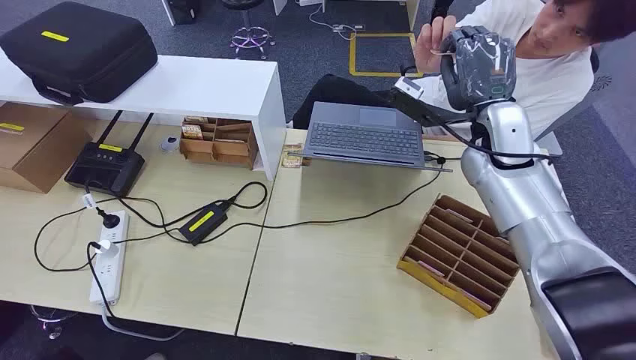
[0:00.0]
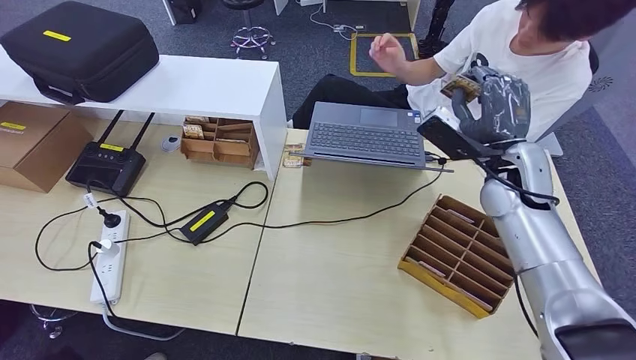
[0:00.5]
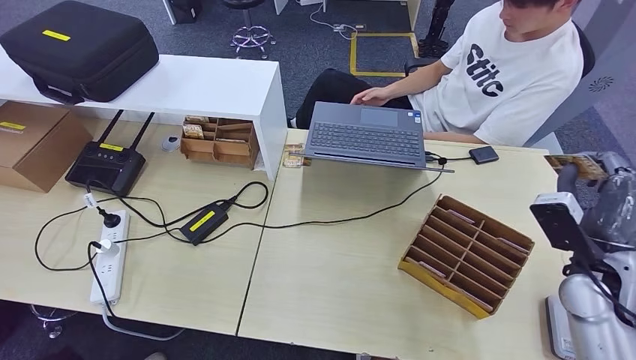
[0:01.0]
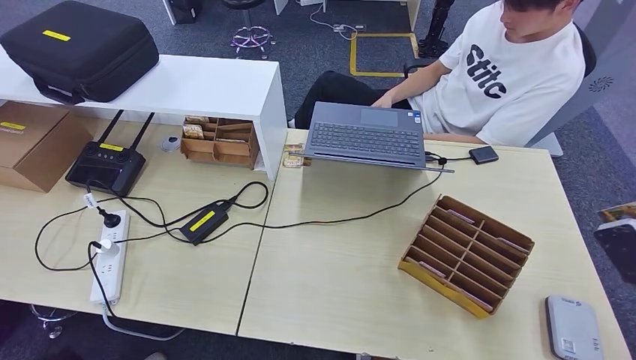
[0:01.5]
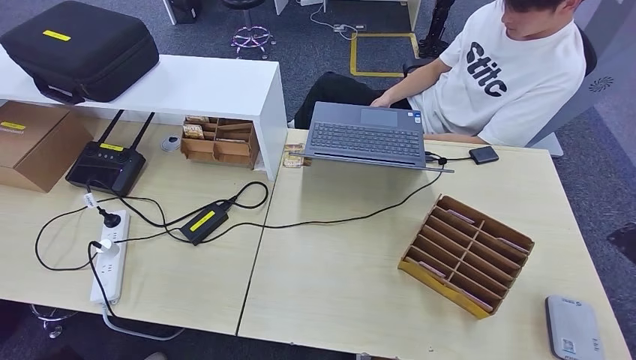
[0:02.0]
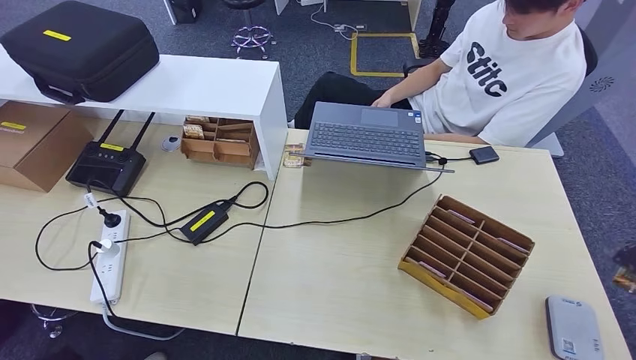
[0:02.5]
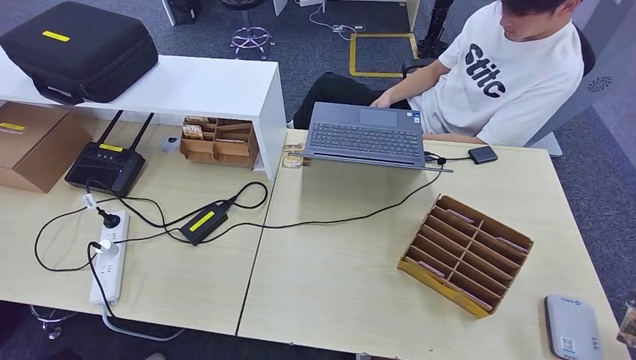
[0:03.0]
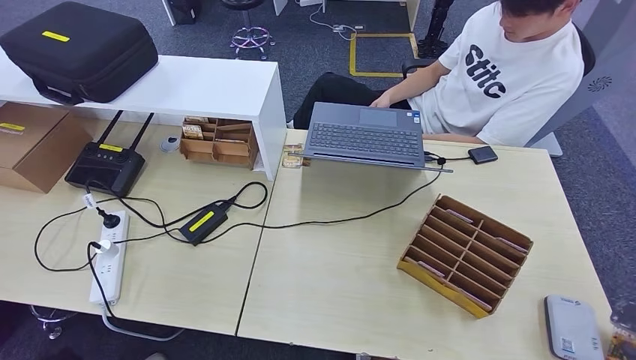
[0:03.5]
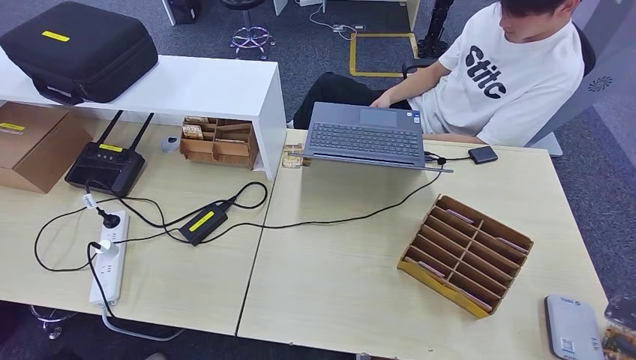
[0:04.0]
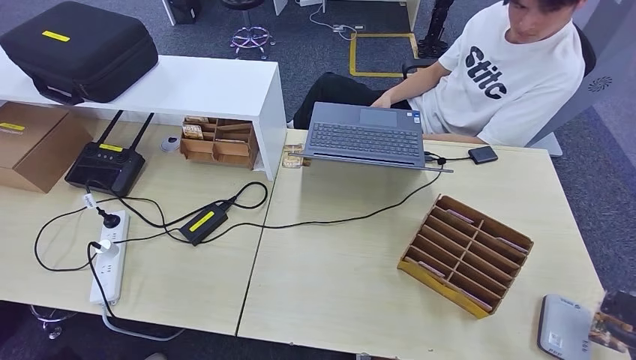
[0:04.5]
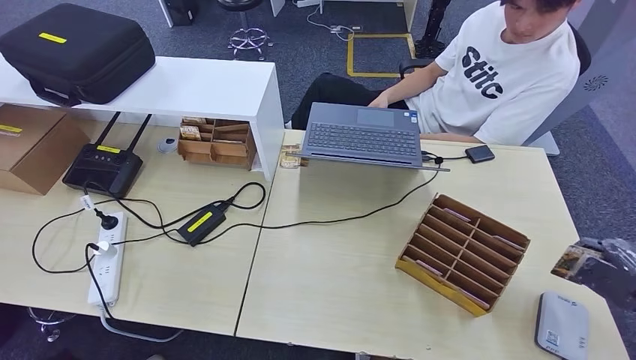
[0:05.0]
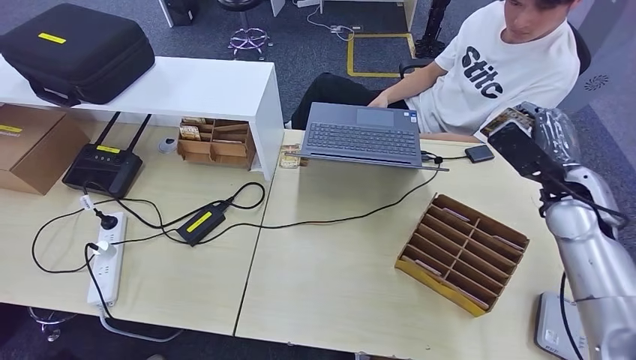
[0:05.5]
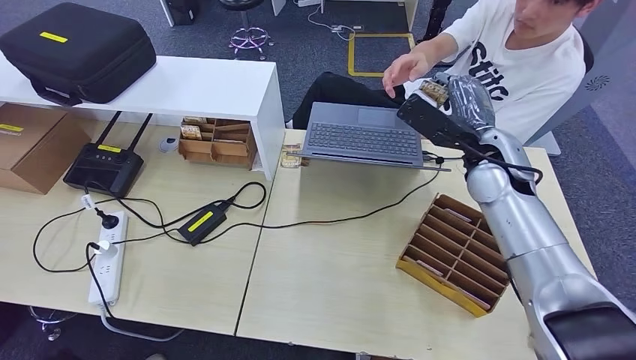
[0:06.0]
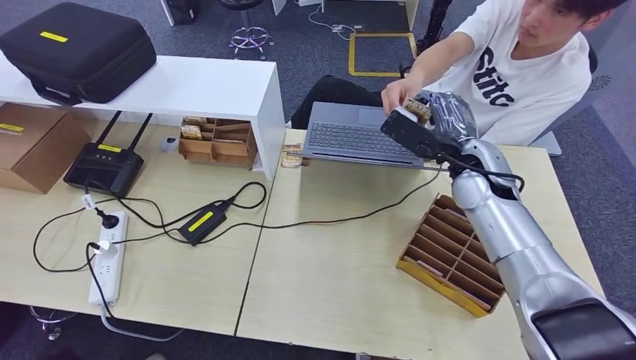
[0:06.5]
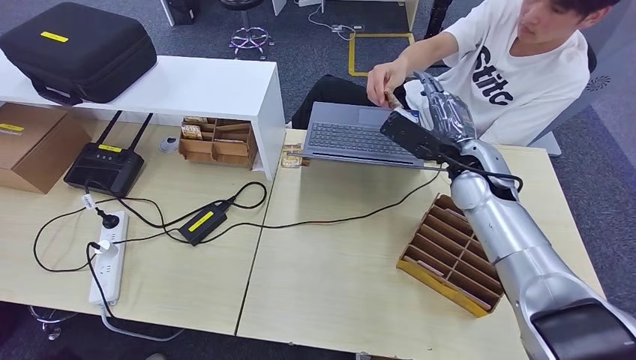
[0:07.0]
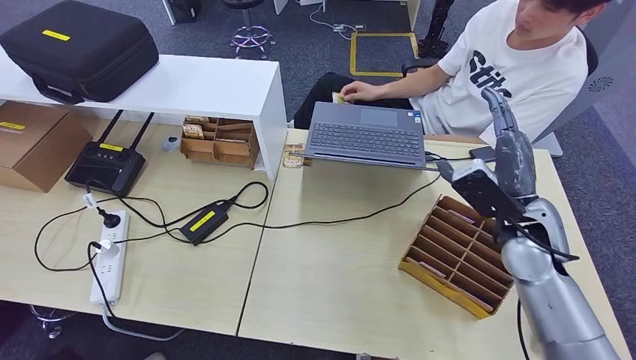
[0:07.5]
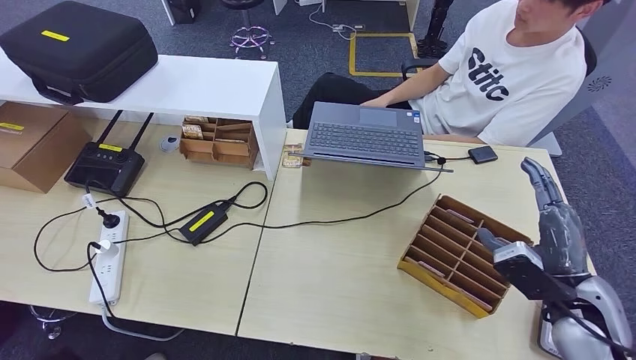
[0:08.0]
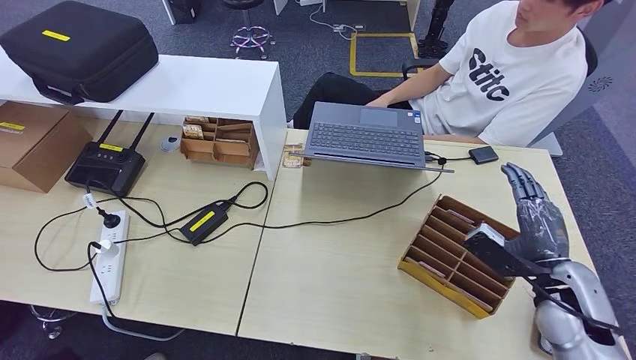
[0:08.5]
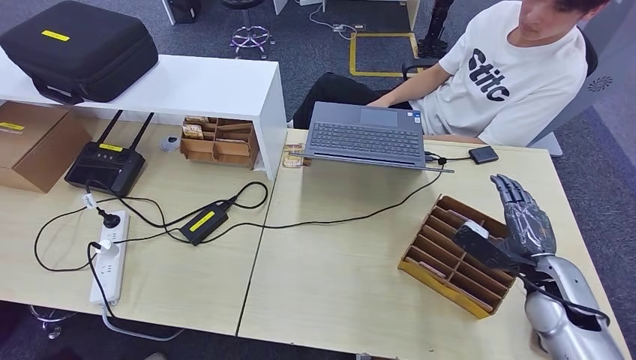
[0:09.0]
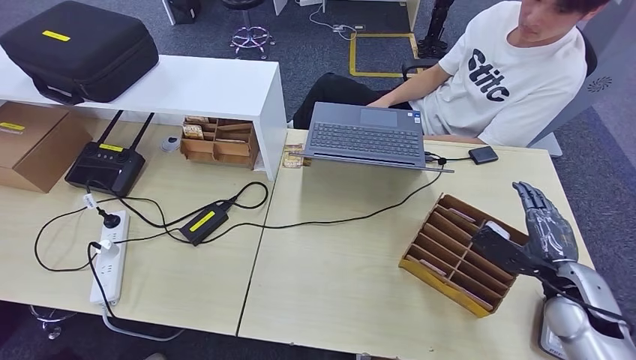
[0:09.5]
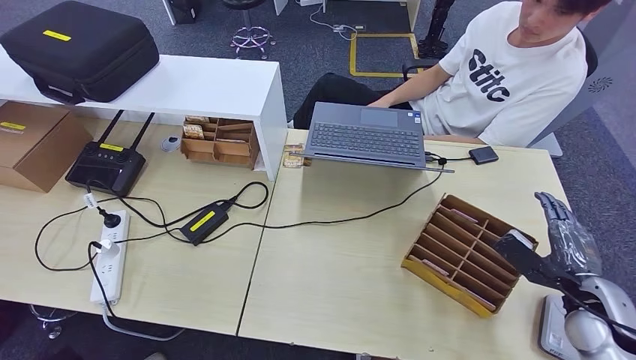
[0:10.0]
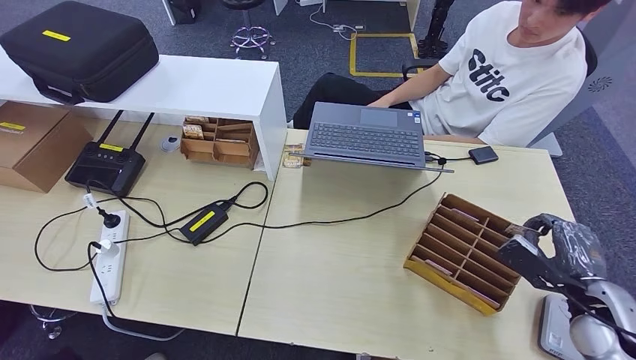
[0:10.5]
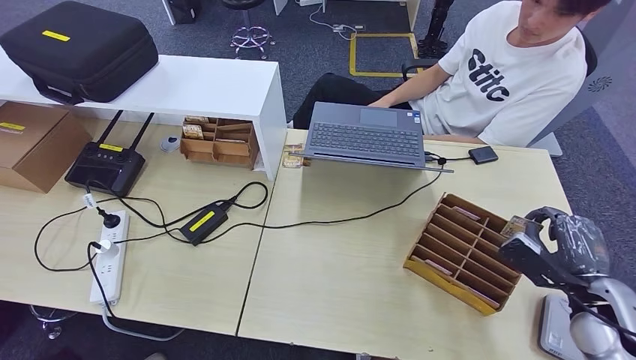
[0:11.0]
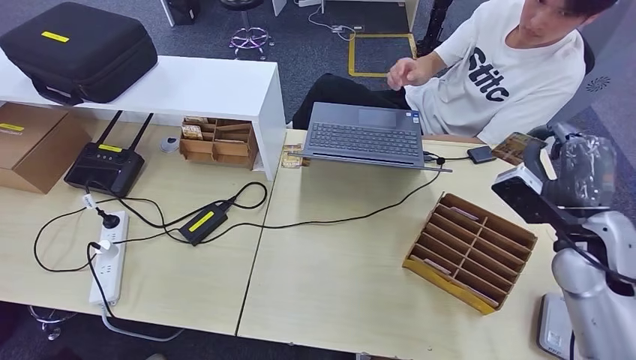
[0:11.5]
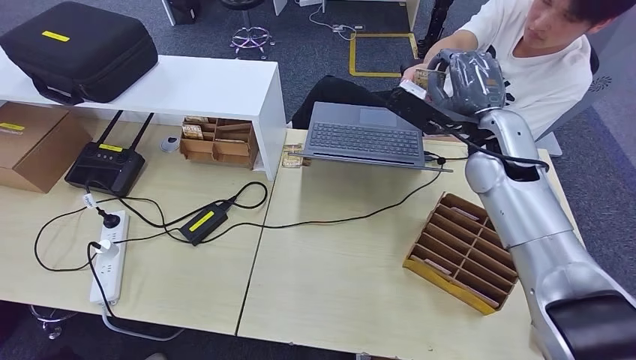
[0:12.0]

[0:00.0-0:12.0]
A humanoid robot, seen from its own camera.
Step, 0:00.0 to 0:01.5: Take the ID card from the person's hand.
Step, 0:02.0 to 0:05.5: Place the ID card on the card reader.
Step, 0:06.0 to 0:09.0: Hand the ID card to the person.
Step, 0:09.5 to 0:11.5: Pick up the room key from the key card box.
0:02.0 to 0:04.0: The right hand is displaced to the right and downward by about 10 cm.
0:04.0 to 0:06.0: The right hand shifts some 40 cm to the left and forward.
0:06.0 to 0:08.0: The right hand moves backward, to the right and downward, about 25 cm.
0:08.0 to 0:10.0: The right hand goes about 5 cm to the right.
0:10.0 to 0:12.0: The right hand shifts some 30 cm to the left, forward and upward.

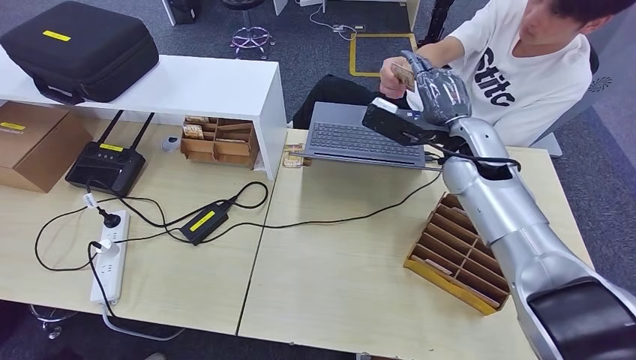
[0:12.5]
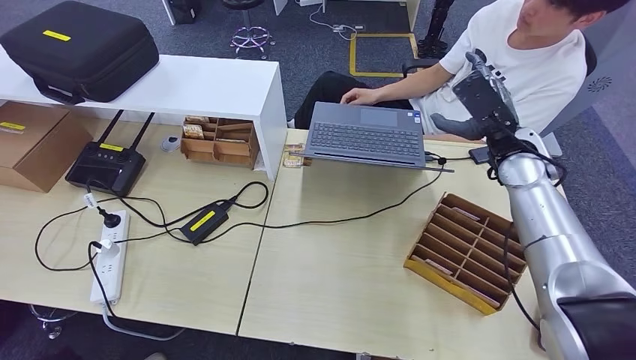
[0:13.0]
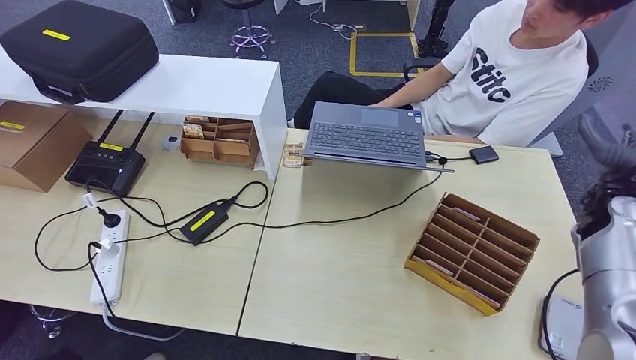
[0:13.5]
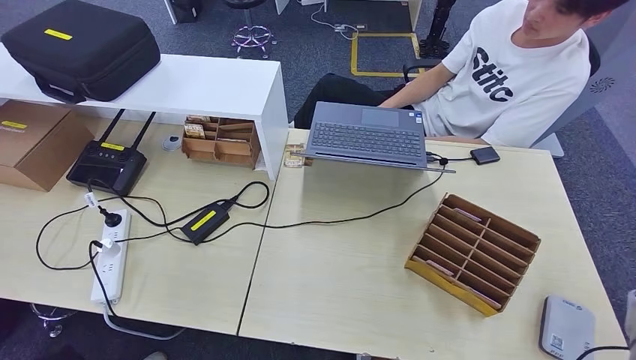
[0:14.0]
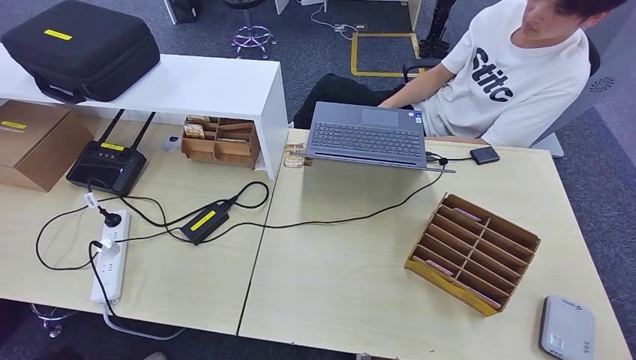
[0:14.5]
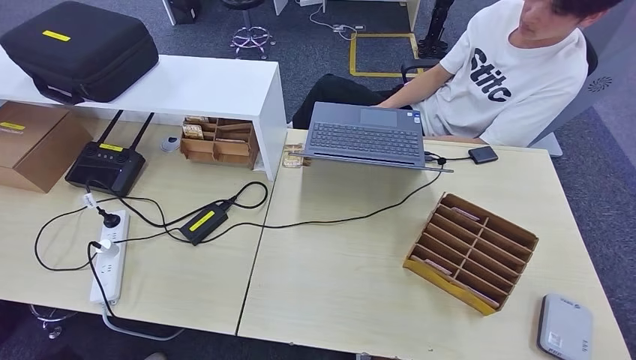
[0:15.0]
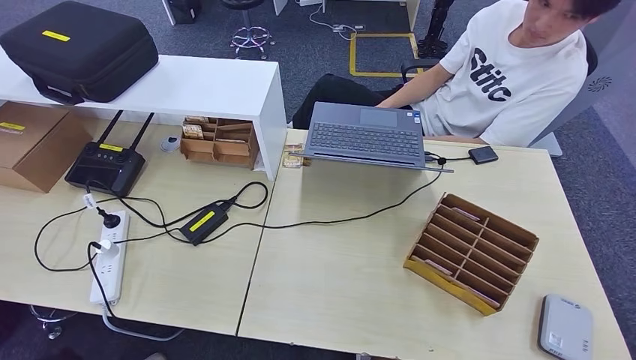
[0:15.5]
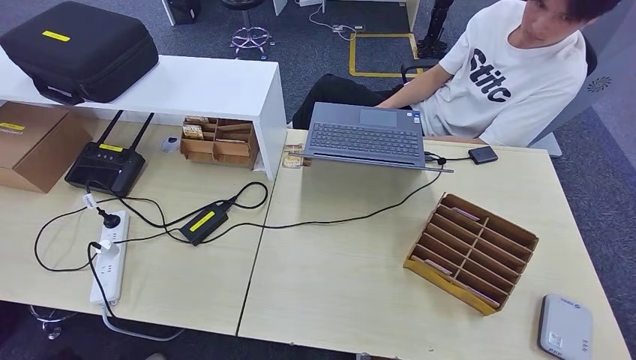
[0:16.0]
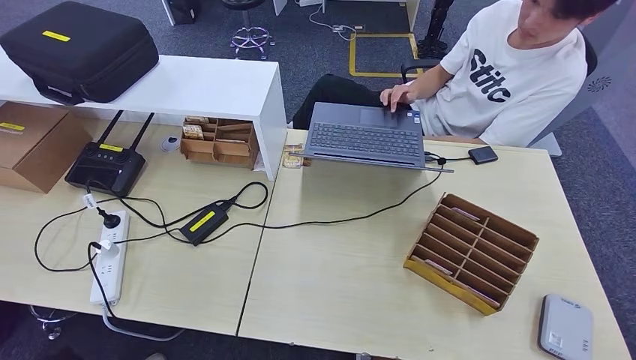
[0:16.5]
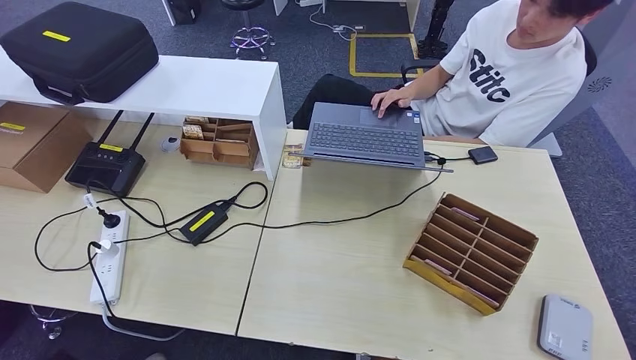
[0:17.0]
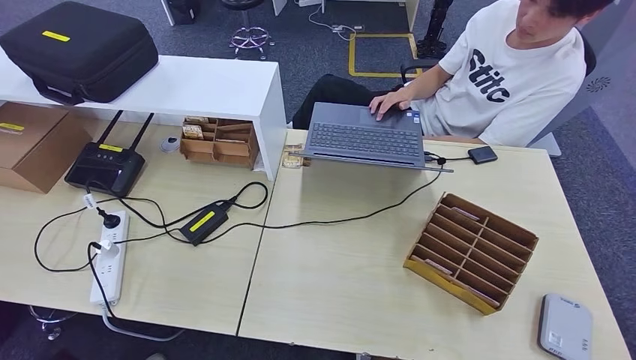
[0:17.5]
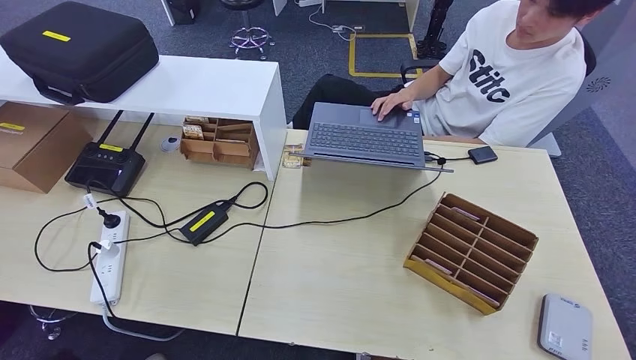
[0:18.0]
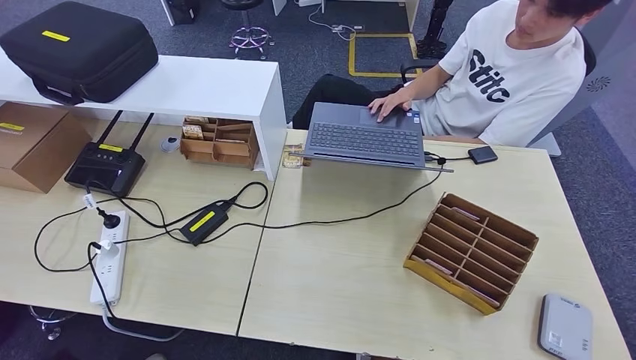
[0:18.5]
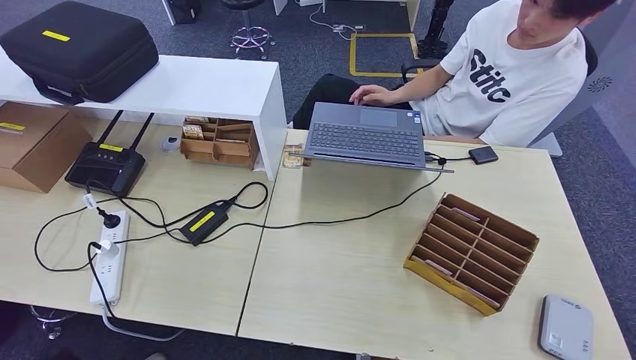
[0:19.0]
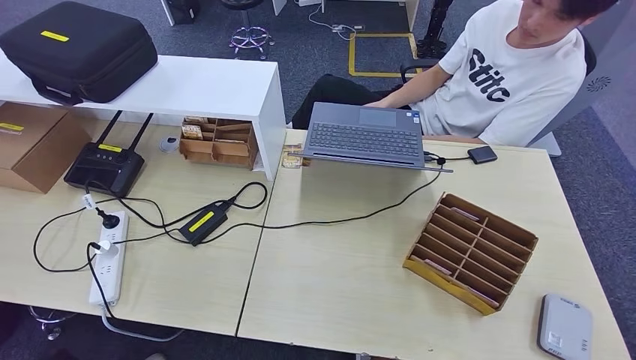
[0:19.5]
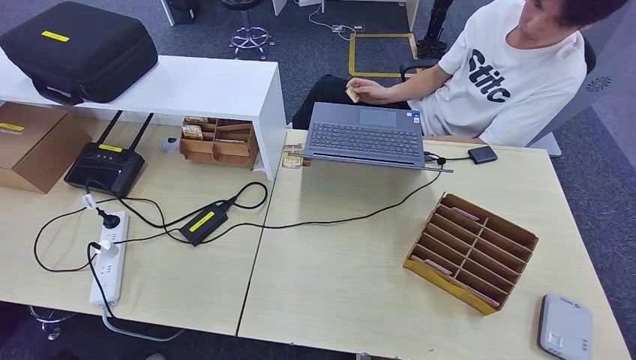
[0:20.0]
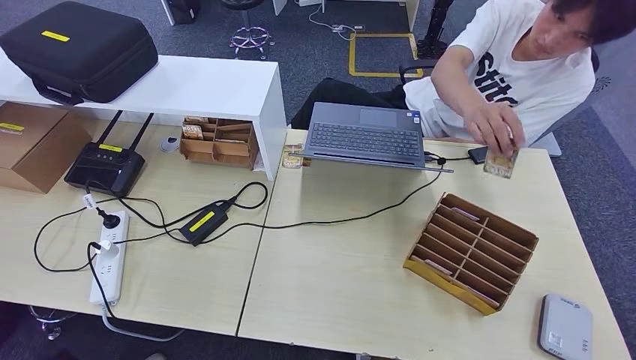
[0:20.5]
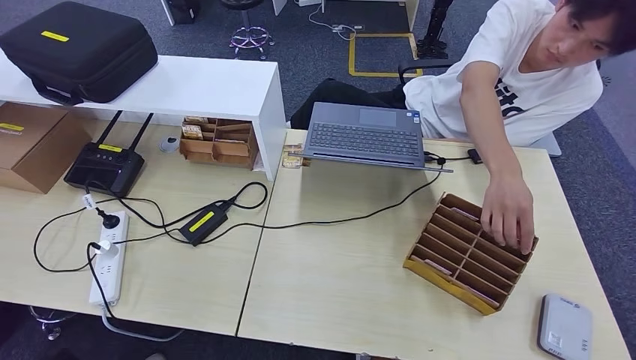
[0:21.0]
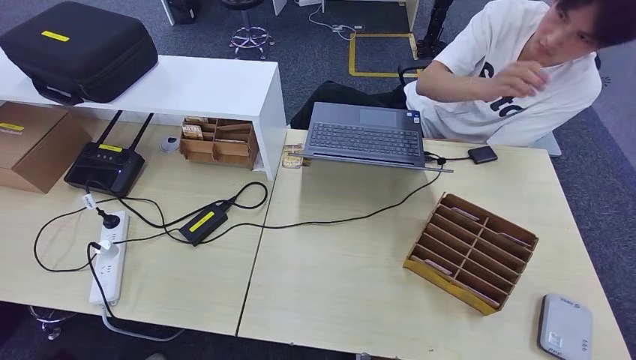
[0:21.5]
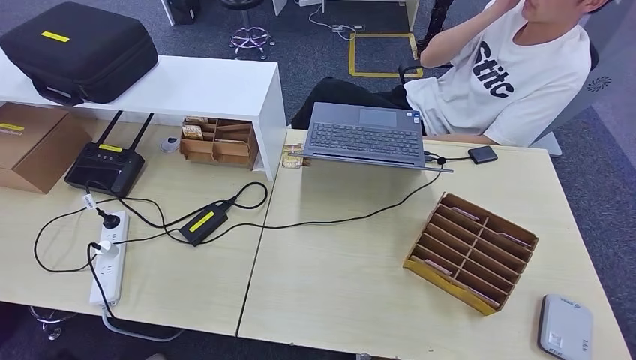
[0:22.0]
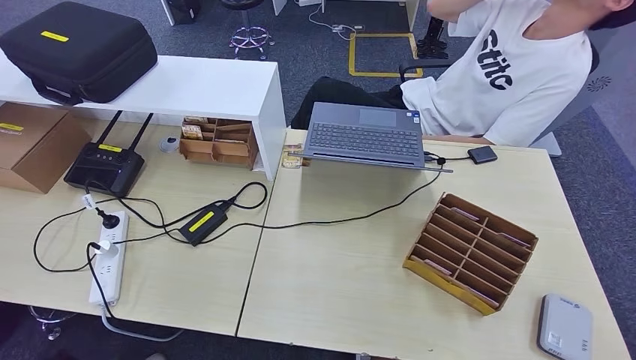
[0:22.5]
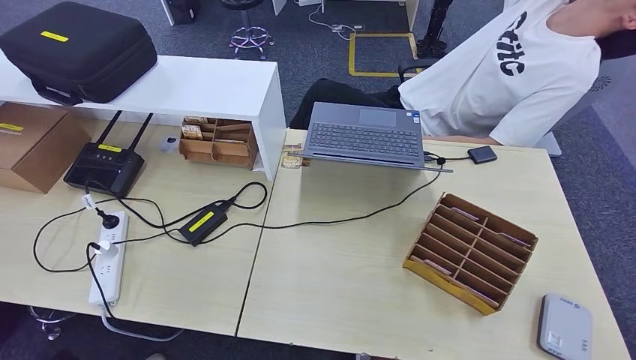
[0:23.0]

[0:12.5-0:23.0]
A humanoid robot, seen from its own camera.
0:12.5 to 0:14.5: The right hand shifts approximately 50 cm to the right, backward and downward.
0:14.5 to 0:16.5: The right hand travels to the left and downward by roughly 35 cm.
0:19.0 to 0:23.0: The hands make only small movements.
